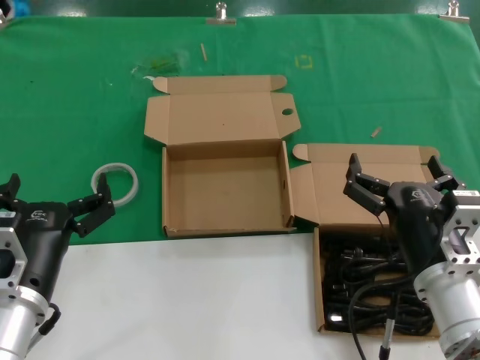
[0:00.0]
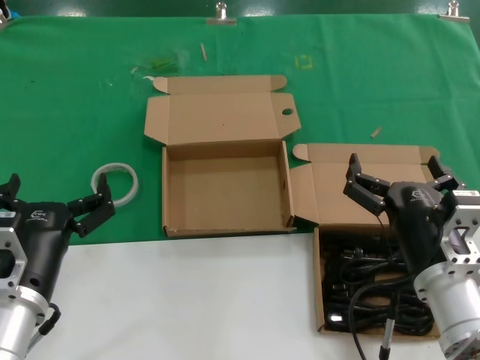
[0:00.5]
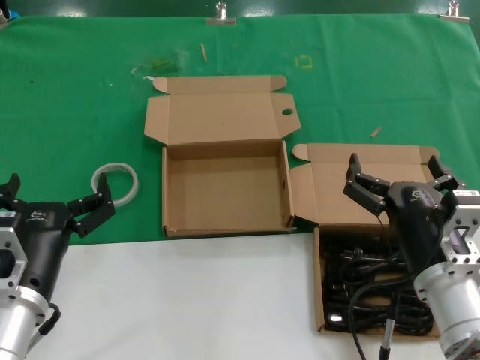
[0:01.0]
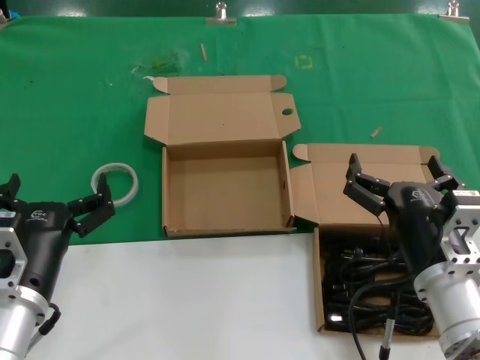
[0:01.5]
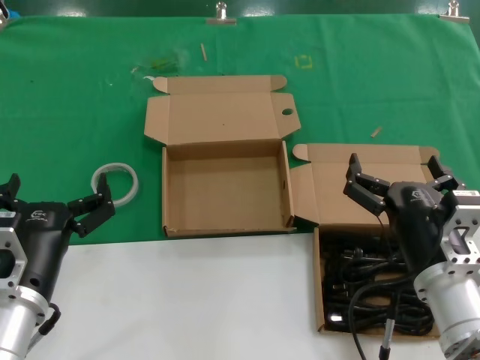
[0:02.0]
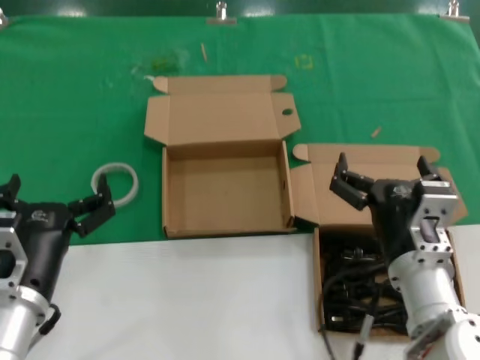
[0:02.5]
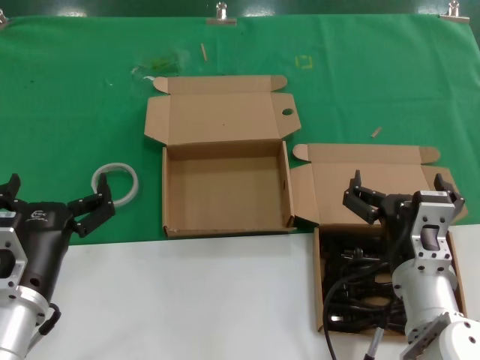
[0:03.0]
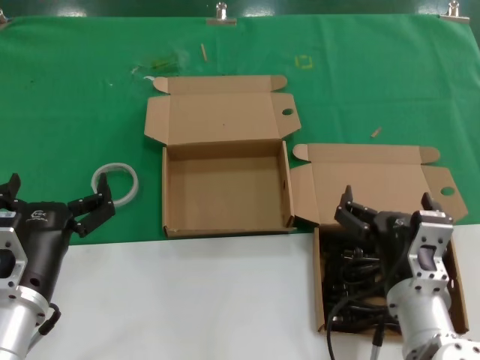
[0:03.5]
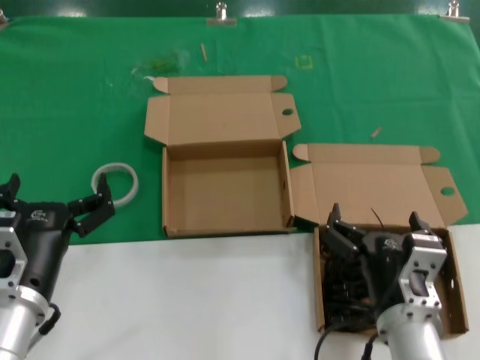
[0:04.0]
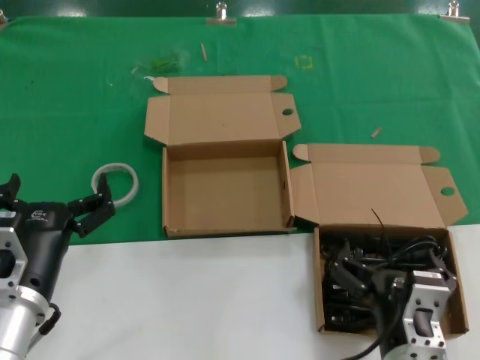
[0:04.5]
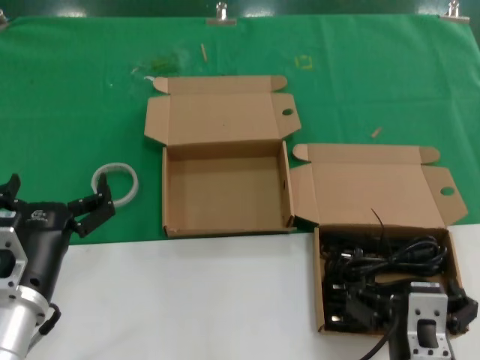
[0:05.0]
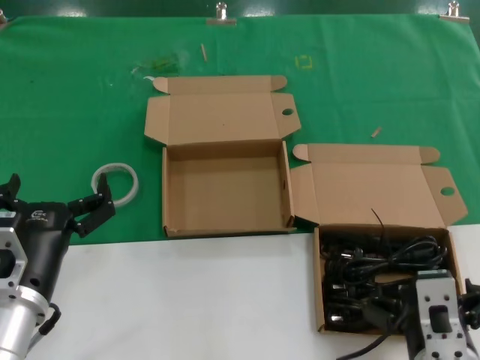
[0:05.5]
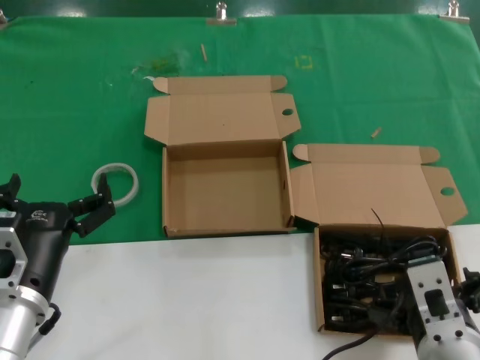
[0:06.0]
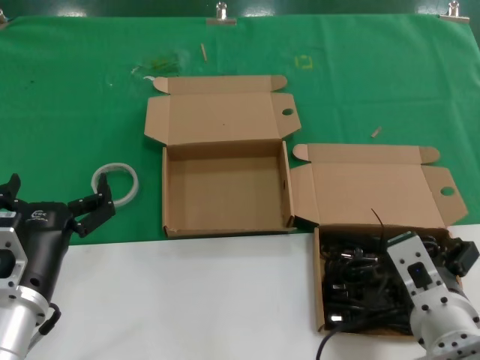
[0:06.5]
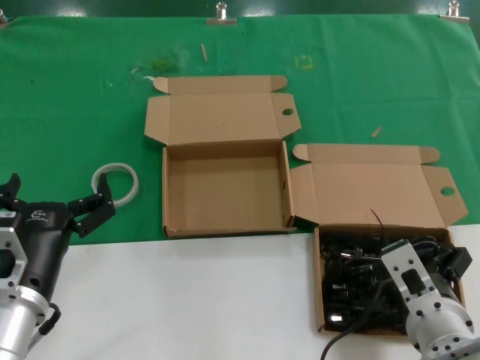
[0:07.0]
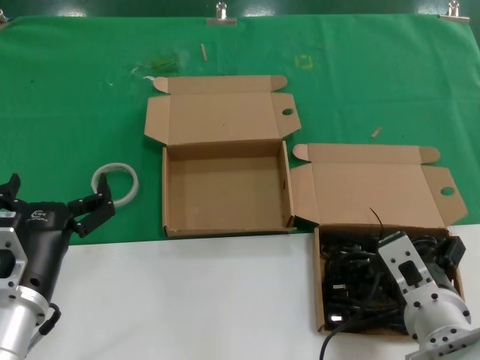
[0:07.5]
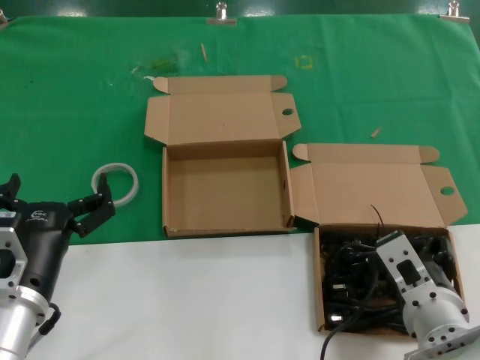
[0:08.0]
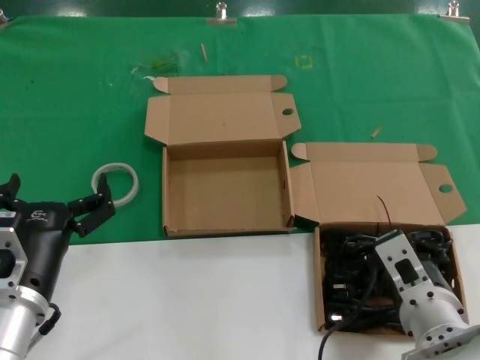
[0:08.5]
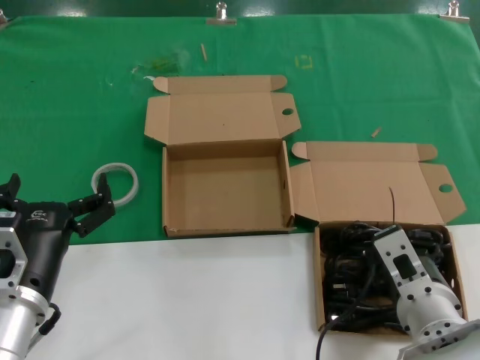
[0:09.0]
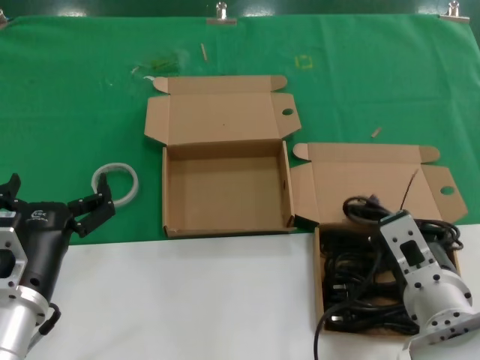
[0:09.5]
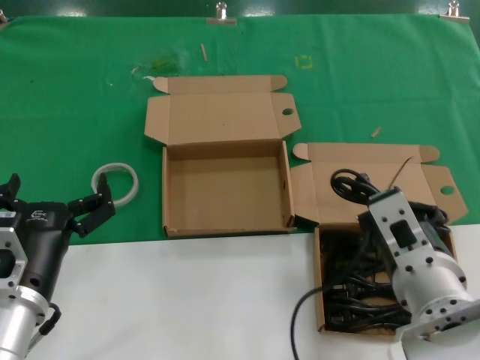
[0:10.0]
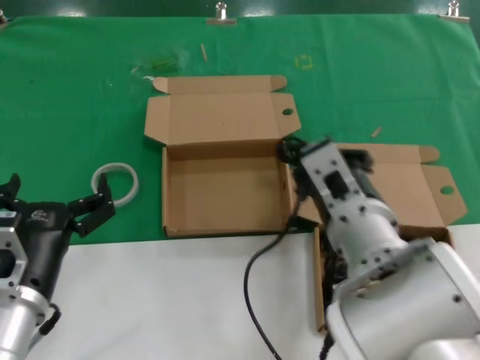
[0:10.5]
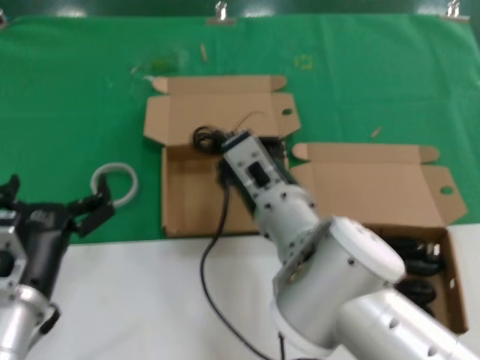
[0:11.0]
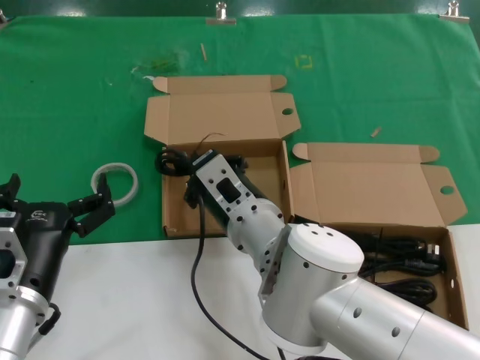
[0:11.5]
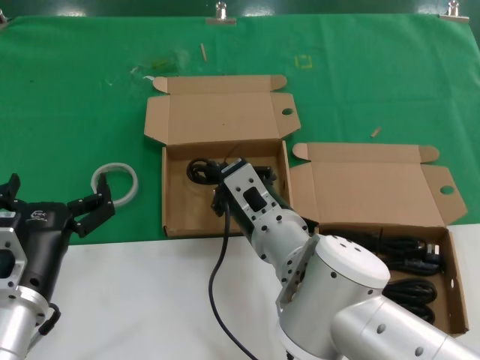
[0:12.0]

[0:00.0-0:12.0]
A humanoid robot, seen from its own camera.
Task of the whole recording: take the parts from the box containing them and put them into an empty box.
Step, 0:00.0 to 0:08.0: Grasp the data cable.
0:00.0 to 0:02.0: Both hands stay put.
0:02.0 to 0:04.0: The right hand ends up about 5 cm from where it was.
0:04.0 to 0:06.0: The right hand is displaced upward by approximately 5 cm.
0:06.0 to 0:08.0: The right hand goes about 5 cm forward.
0:08.0 to 0:10.0: The right hand heads upward, covering about 5 cm.
0:10.0 to 0:12.0: The right hand goes approximately 15 cm to the left and forward.

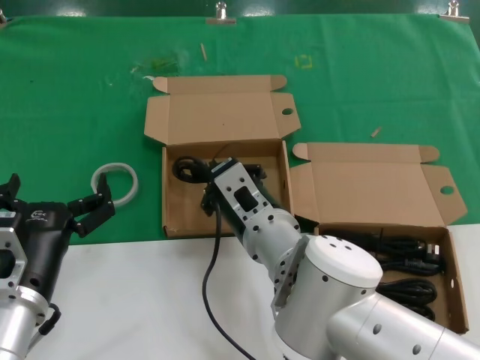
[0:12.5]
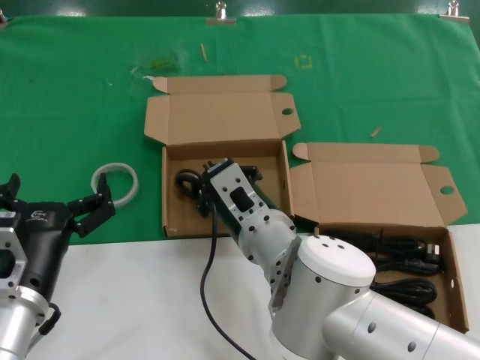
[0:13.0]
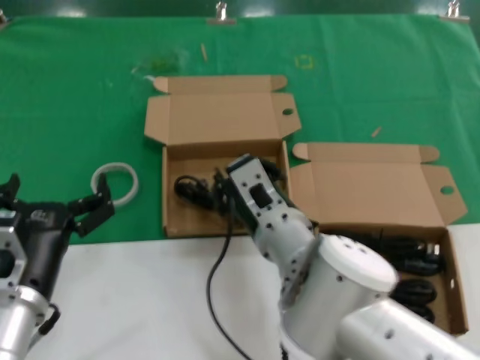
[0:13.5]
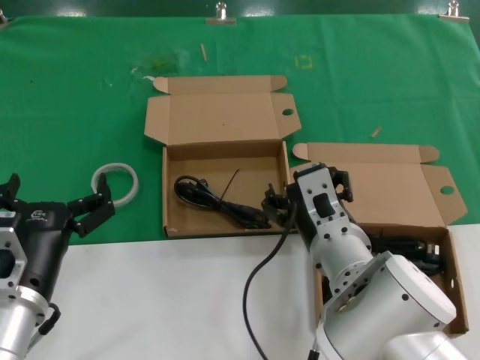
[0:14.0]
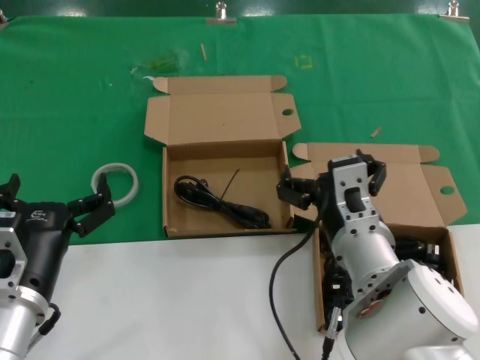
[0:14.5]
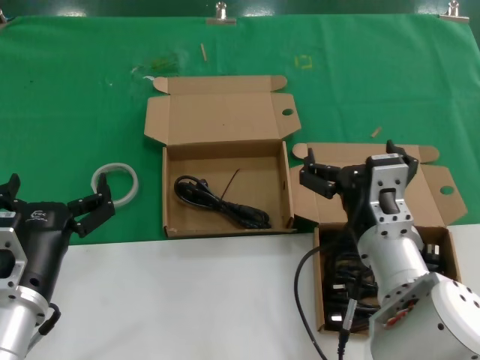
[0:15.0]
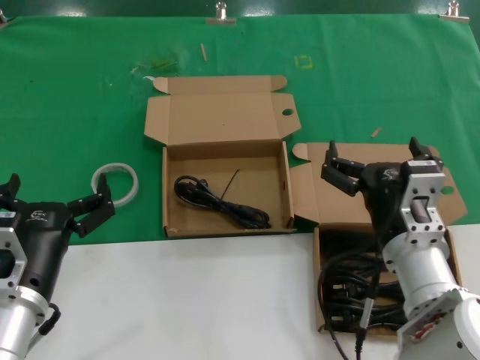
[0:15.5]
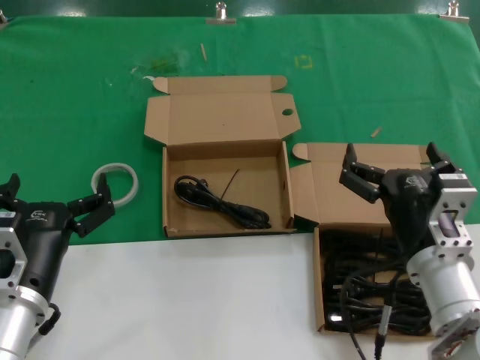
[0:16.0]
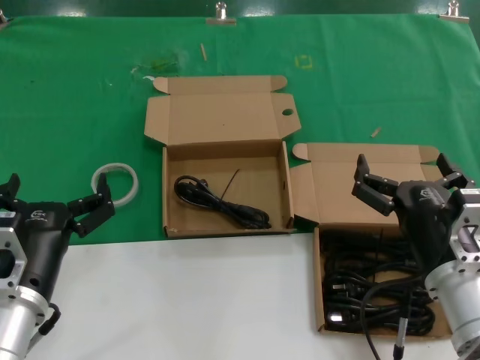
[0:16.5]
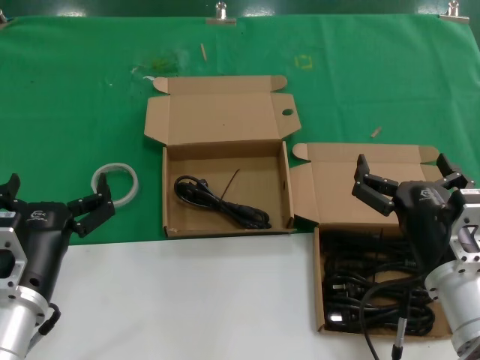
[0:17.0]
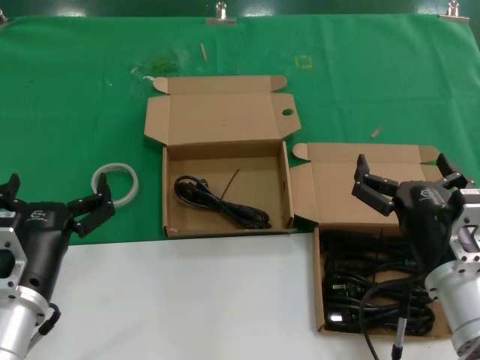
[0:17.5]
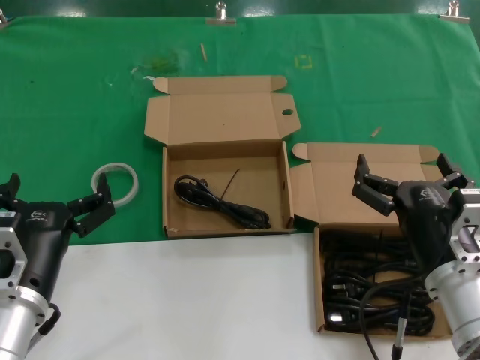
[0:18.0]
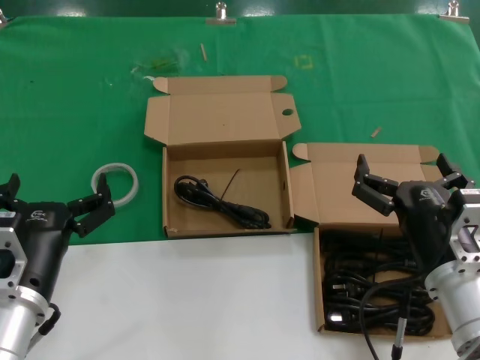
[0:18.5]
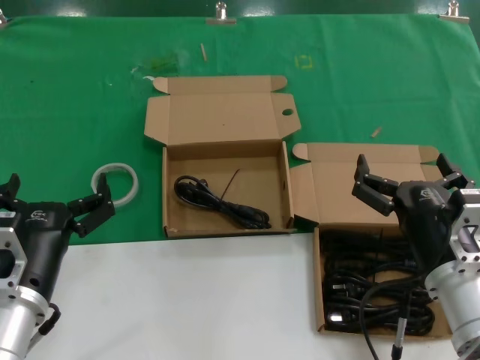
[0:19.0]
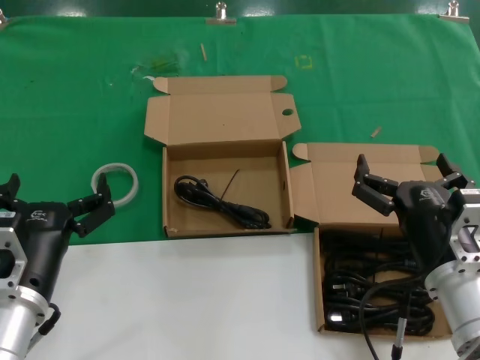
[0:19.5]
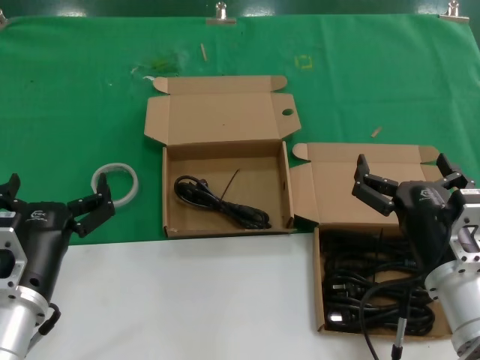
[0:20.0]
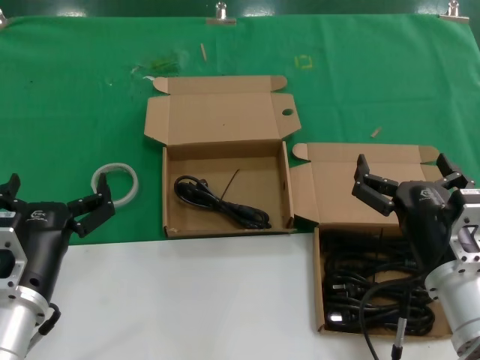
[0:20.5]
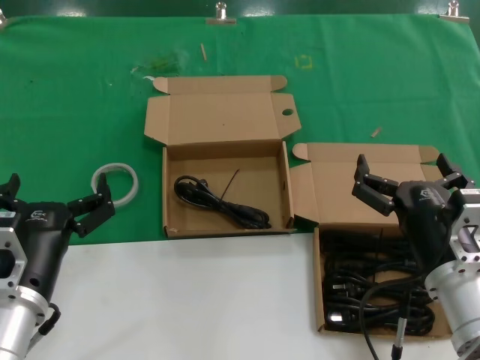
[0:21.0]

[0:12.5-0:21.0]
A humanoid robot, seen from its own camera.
Task of the whole recording: take the parts from the box containing them and put them into an empty box.
0:12.5 to 0:14.5: The right hand heads to the right, covering about 10 cm.
0:14.5 to 0:16.5: The right hand shifts approximately 10 cm to the right.
0:16.5 to 0:21.0: The two hands keep their place.

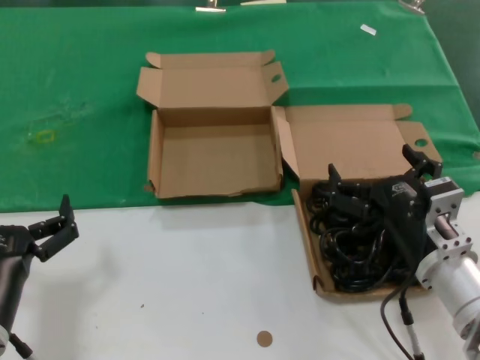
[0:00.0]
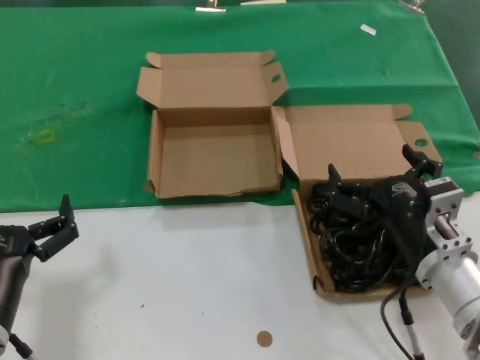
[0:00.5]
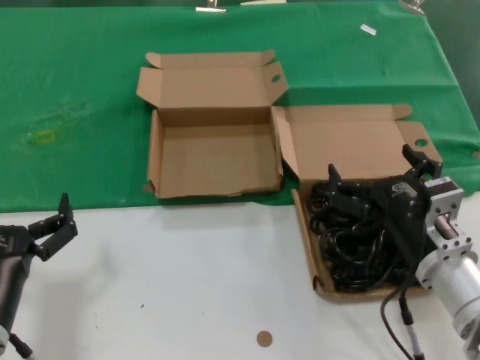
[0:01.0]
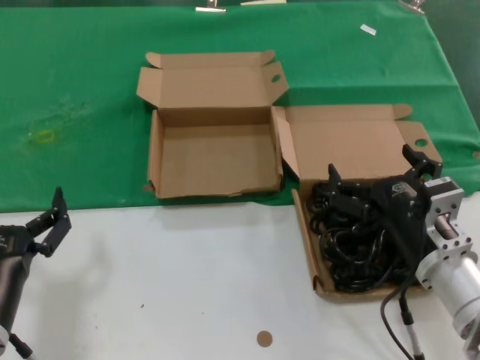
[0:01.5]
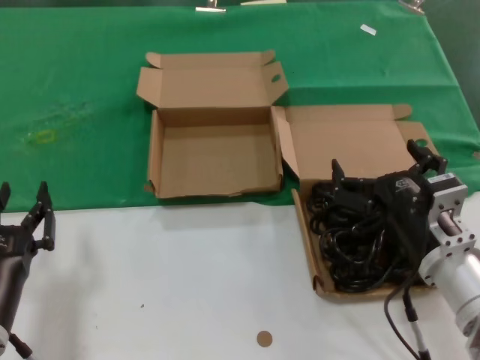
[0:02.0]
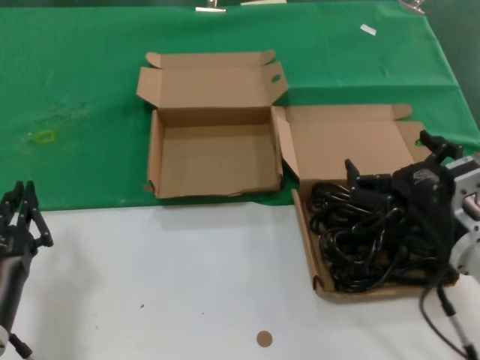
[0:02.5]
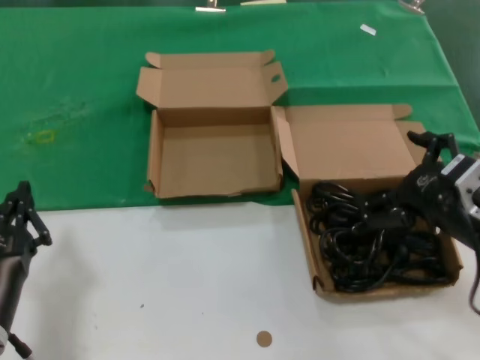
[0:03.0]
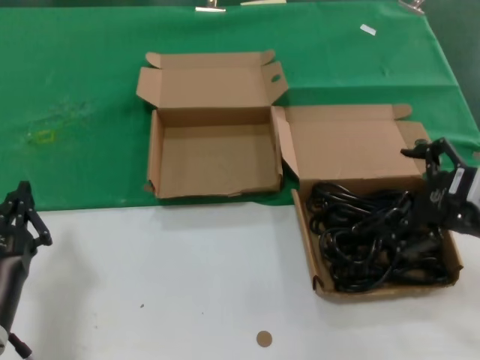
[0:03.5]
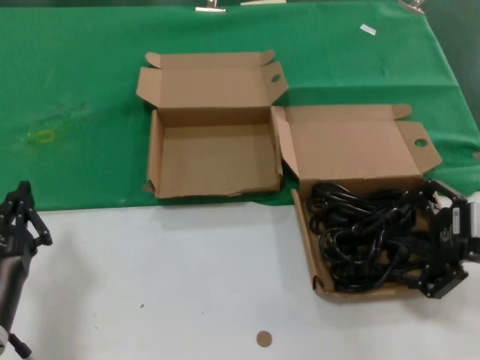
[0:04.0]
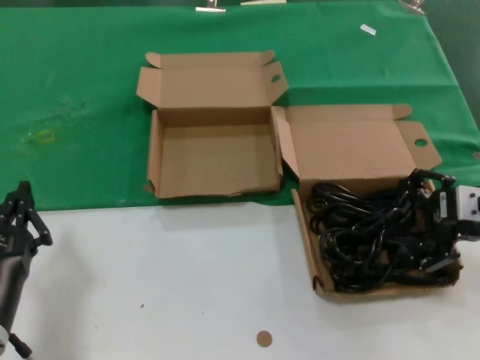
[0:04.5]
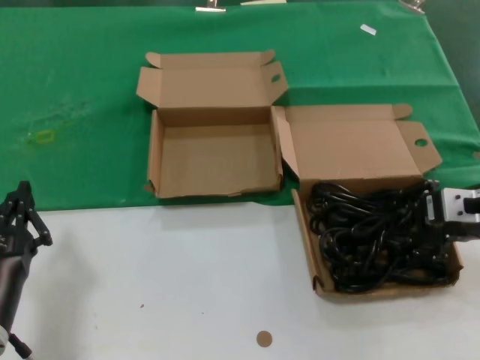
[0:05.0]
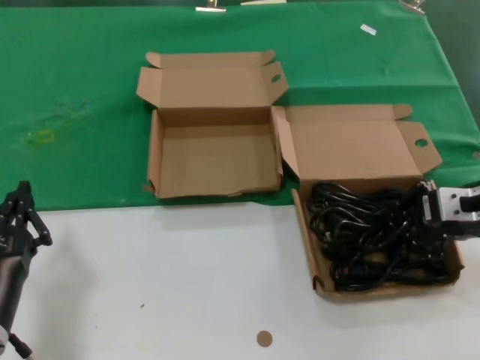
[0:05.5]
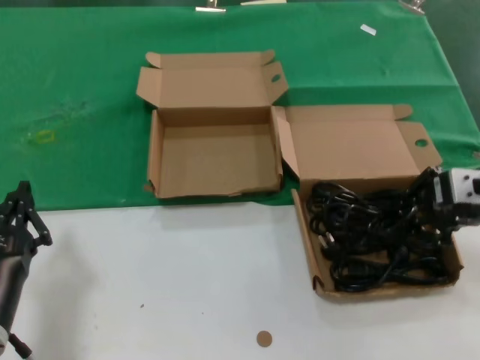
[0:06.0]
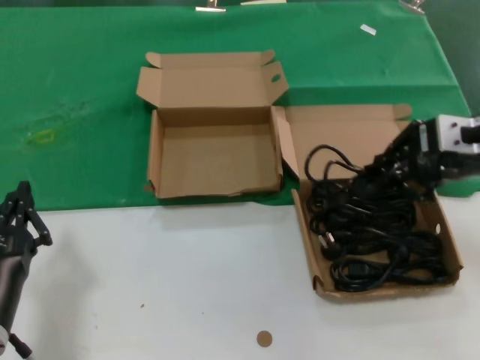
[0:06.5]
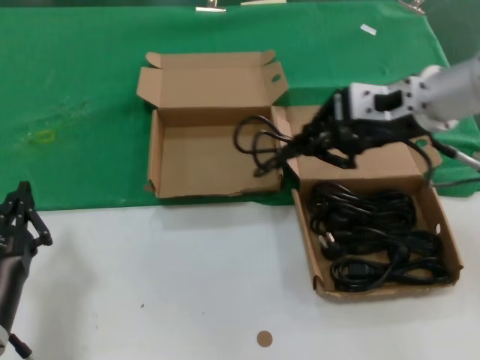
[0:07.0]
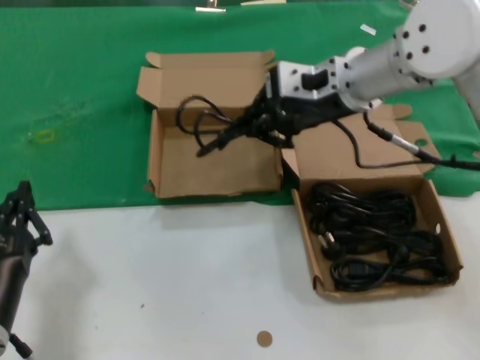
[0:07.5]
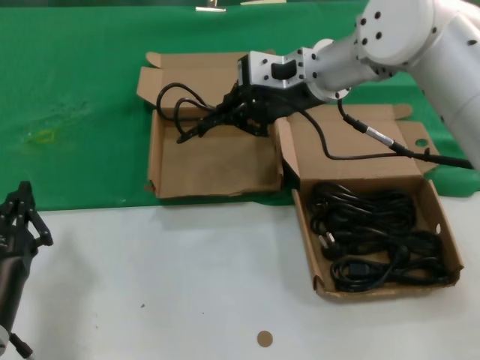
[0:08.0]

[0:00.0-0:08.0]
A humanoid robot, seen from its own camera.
Task of the whole recording: take the parts from the box containing them and put them into an empty box.
Step, 0:00.0 to 0:05.0: Grasp the data cable.
0:00.0 to 0:02.0: Neither hand changes place.
0:02.0 to 0:04.0: The right hand is displaced to the right and upward by approximately 15 cm.
0:04.0 to 0:06.0: The right hand is displaced forward by some 5 cm.
0:06.0 to 0:08.0: The right hand shifts about 25 cm to the left and forward.
